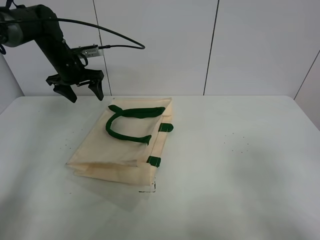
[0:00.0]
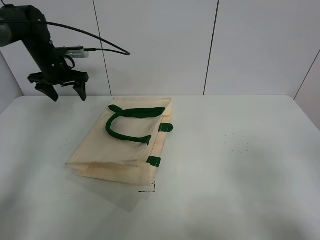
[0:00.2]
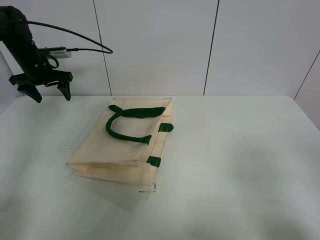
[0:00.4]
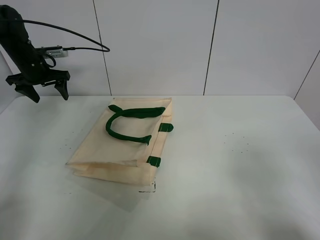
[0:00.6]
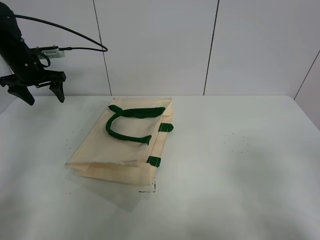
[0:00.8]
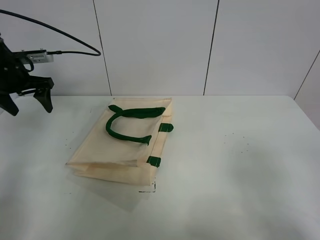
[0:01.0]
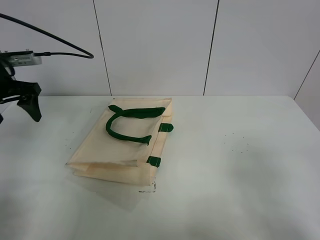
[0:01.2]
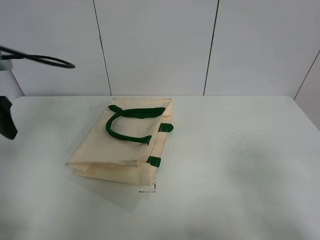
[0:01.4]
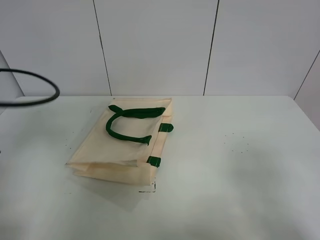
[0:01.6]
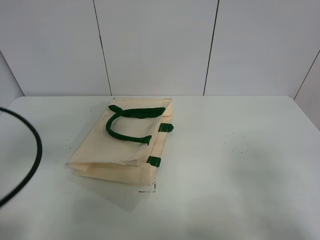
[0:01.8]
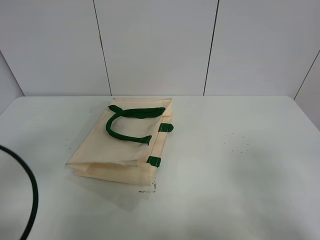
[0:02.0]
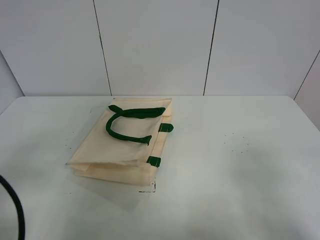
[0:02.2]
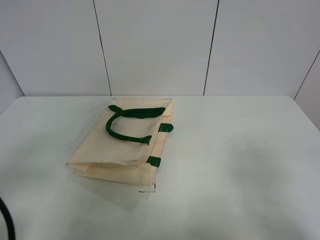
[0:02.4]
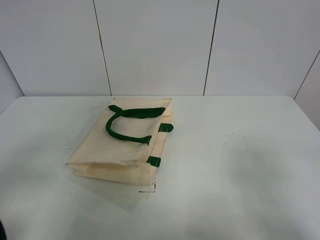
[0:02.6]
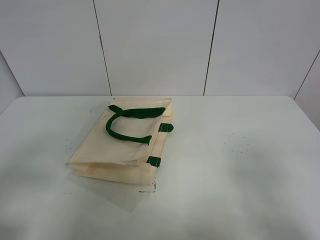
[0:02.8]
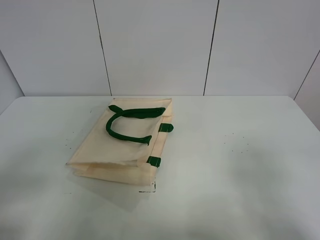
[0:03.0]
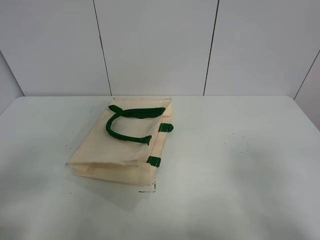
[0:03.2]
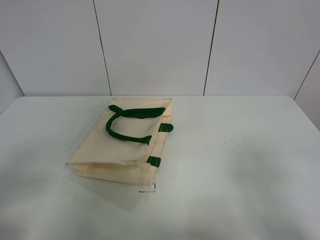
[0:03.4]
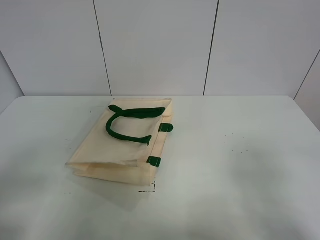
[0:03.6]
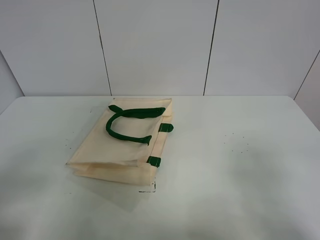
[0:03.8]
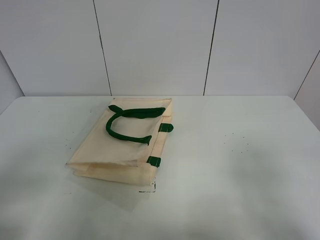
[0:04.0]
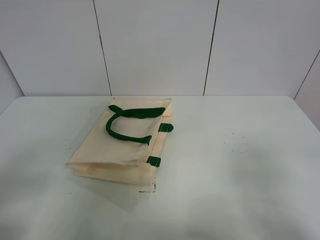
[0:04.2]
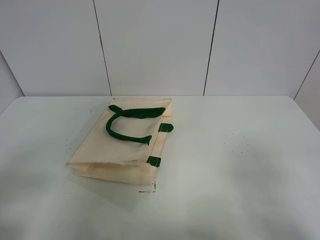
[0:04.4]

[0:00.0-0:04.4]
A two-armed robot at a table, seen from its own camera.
Task of the whole recording: open the white linen bag and put the orange in the bag.
0:00.0 to 0:01.4: The left gripper travels backward by about 25 cm.
0:01.4 to 0:03.0: The left gripper goes approximately 25 cm backward.
0:03.0 to 0:04.4: Neither gripper changes place.
